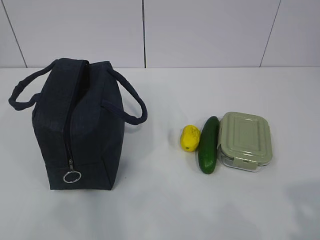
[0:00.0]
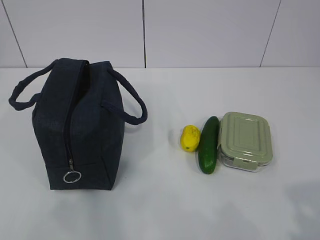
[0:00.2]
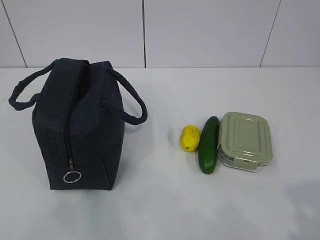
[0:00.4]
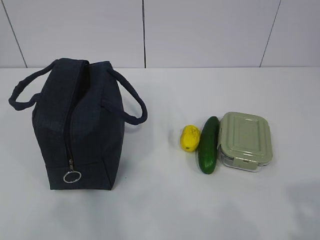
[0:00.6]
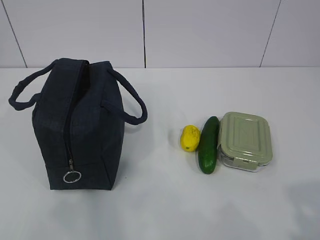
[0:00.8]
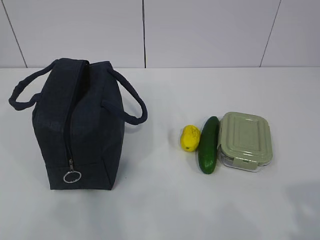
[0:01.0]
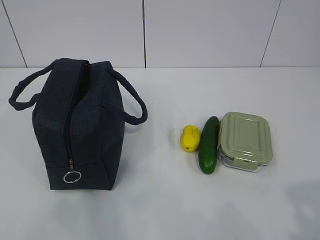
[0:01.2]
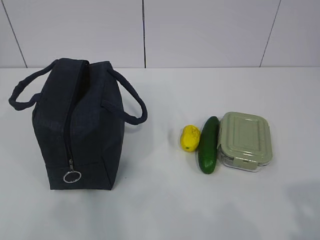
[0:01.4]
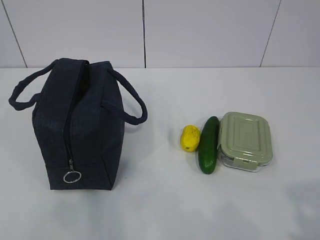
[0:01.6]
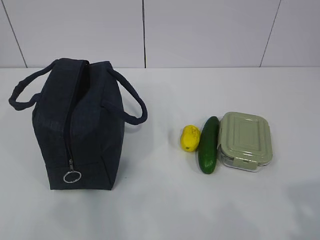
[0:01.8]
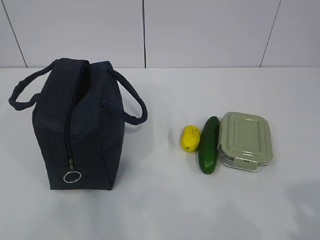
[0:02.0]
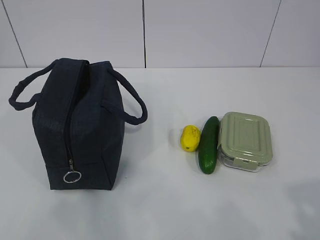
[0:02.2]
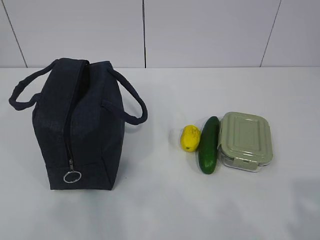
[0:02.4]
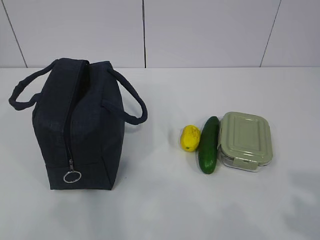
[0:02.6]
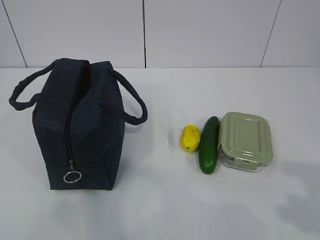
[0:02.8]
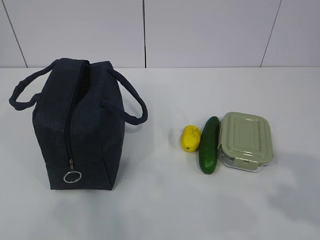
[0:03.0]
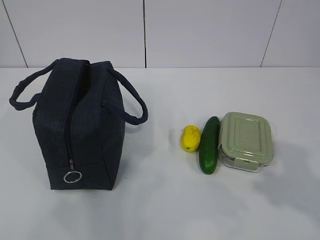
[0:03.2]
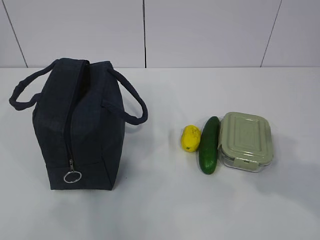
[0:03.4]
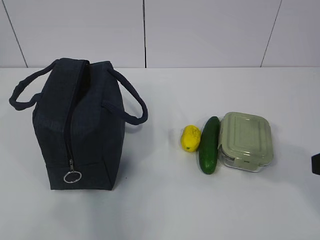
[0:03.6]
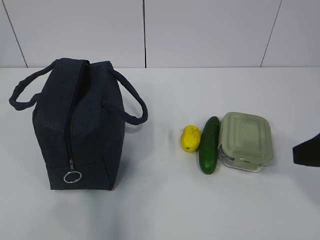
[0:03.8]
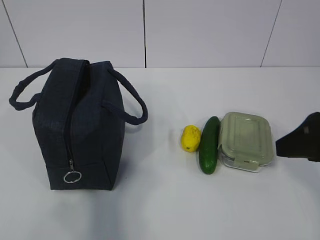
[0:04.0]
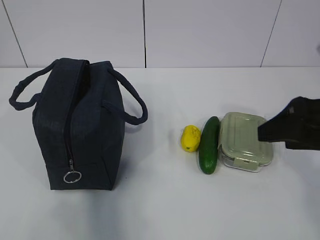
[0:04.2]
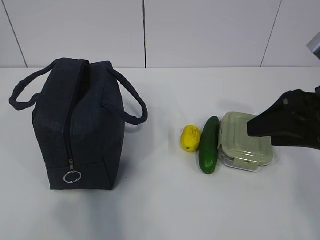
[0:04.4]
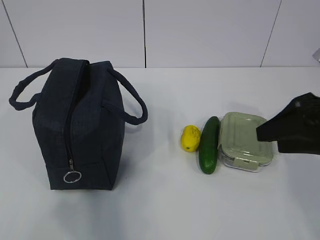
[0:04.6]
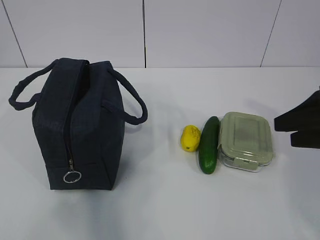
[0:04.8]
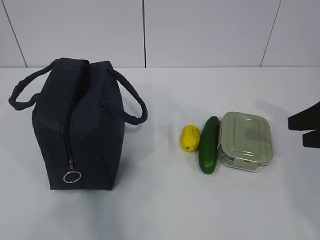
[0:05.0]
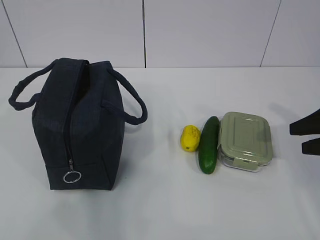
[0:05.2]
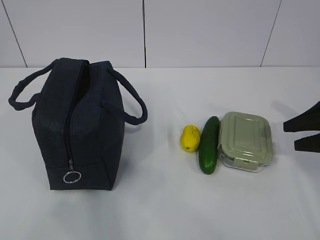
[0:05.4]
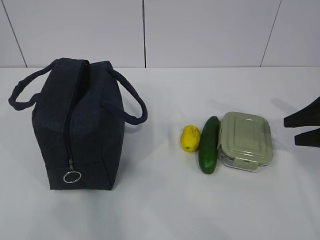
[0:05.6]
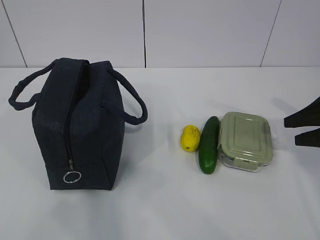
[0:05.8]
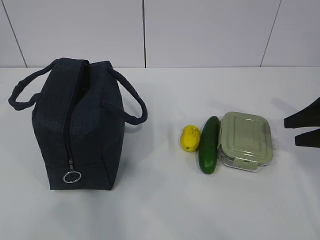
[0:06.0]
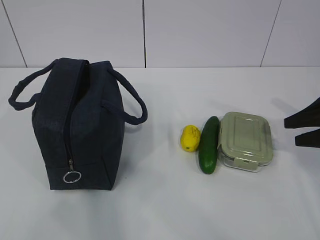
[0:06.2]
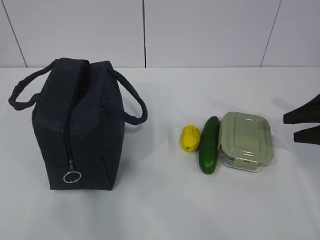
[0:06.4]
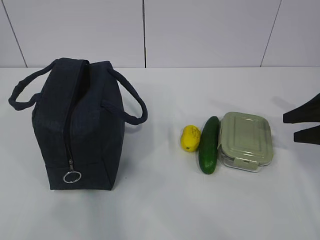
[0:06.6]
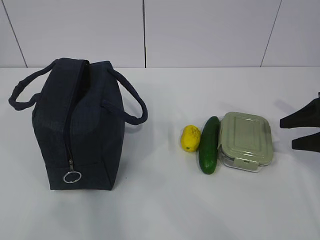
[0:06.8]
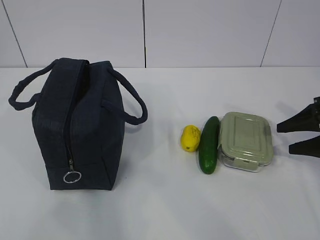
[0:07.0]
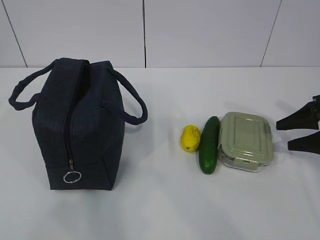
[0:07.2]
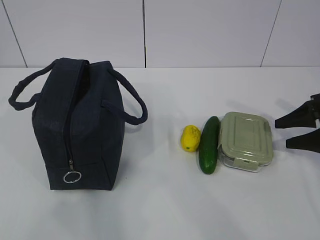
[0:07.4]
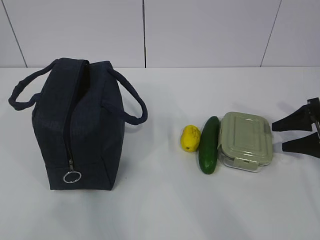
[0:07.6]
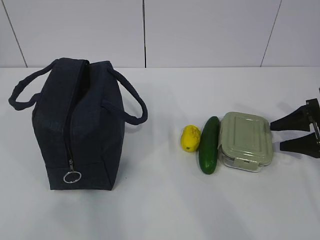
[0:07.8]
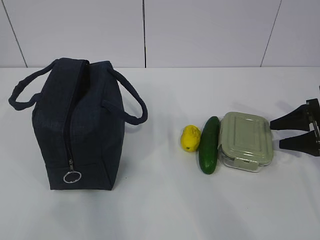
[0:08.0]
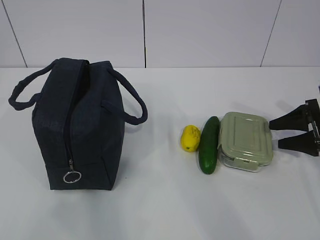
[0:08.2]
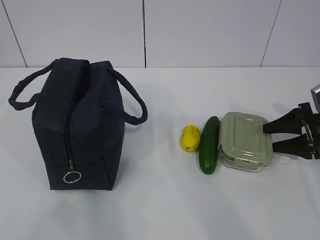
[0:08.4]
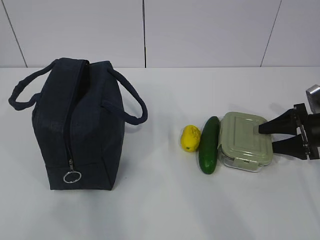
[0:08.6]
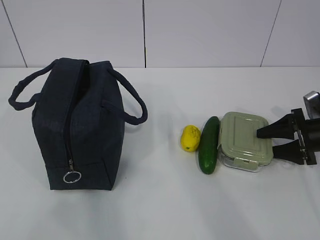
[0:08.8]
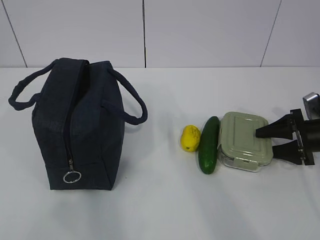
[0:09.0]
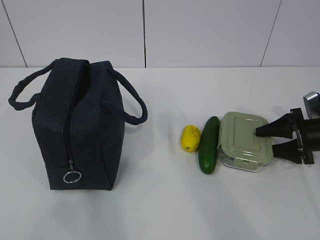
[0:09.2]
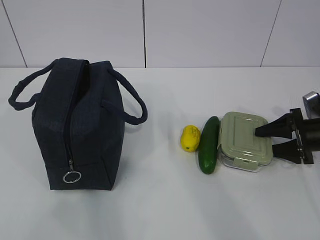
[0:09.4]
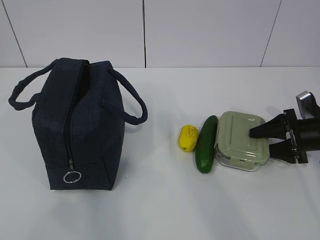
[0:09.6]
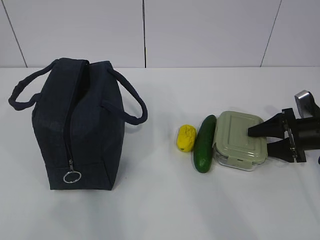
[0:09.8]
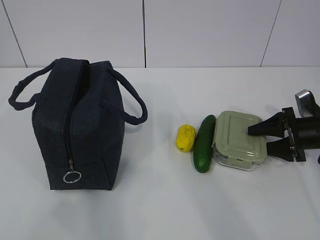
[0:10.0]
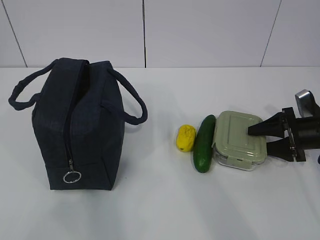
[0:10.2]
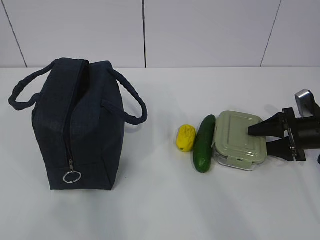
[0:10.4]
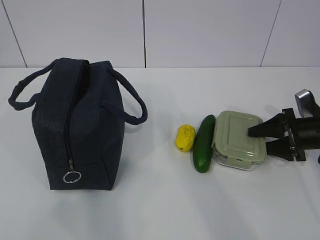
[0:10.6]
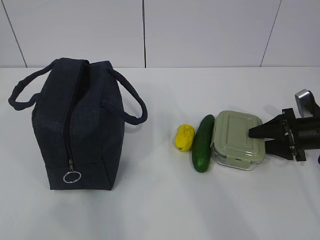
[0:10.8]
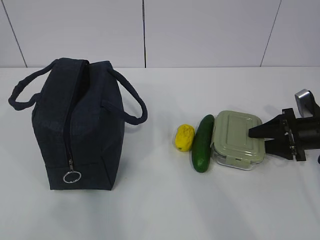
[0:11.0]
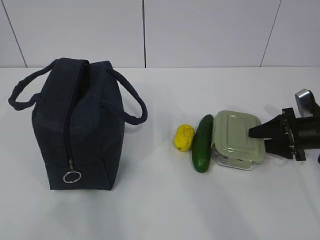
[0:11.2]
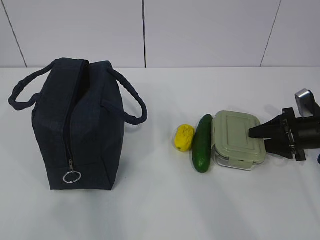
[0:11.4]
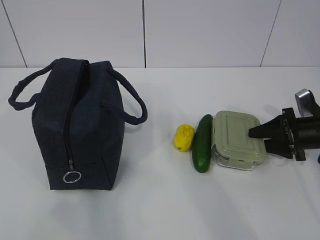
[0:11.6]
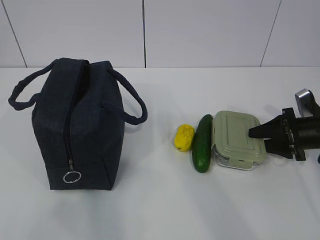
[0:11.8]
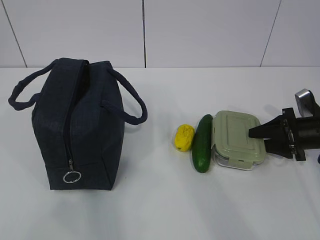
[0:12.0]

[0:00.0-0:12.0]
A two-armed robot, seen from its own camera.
0:03.0 to 0:04.4: The right gripper moves forward, about 20 cm.
0:04.4 to 0:06.0: The right gripper moves to the right, downward and forward, approximately 15 cm.
0:06.0 to 0:07.6: The right gripper goes approximately 5 cm downward.
0:07.6 to 0:10.4: The grippers stay close to where they were, moving slightly.
0:10.4 to 0:12.0: Neither gripper changes place.

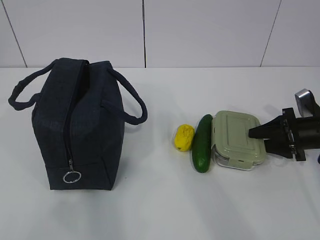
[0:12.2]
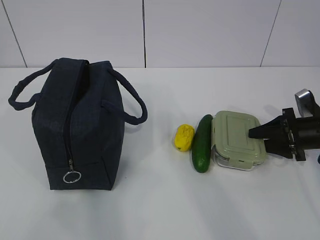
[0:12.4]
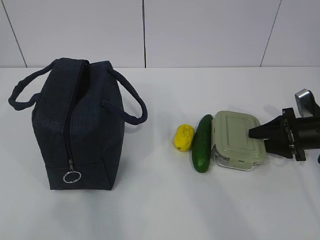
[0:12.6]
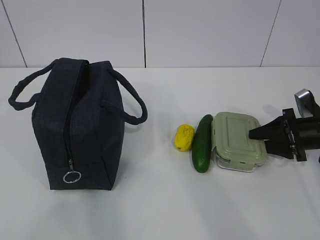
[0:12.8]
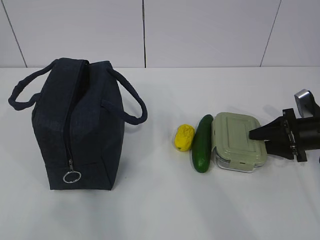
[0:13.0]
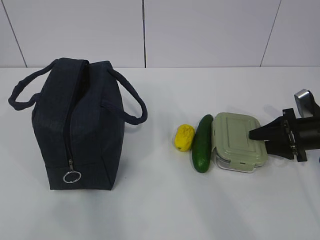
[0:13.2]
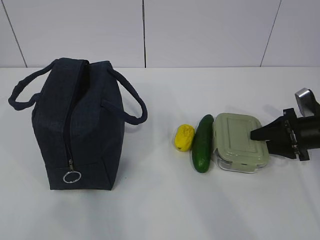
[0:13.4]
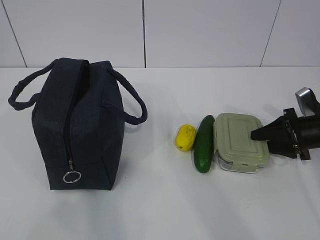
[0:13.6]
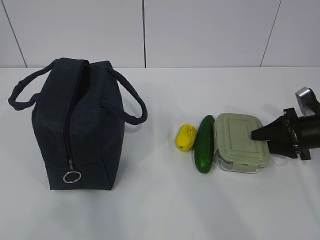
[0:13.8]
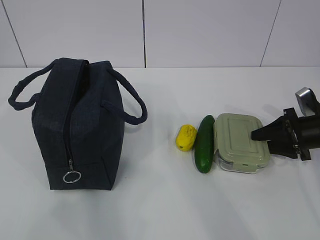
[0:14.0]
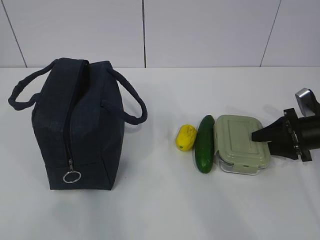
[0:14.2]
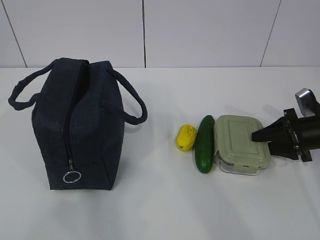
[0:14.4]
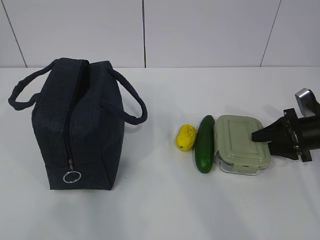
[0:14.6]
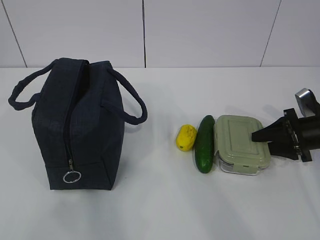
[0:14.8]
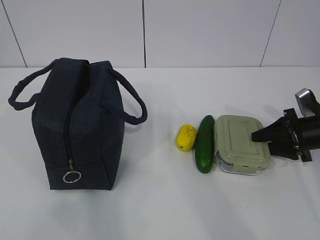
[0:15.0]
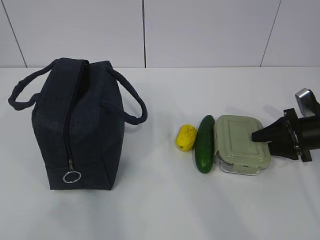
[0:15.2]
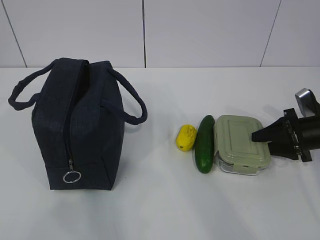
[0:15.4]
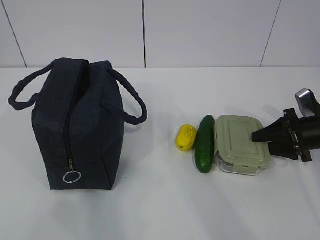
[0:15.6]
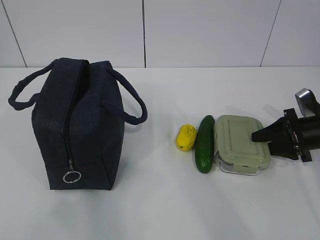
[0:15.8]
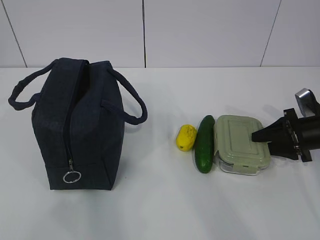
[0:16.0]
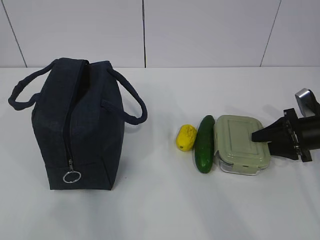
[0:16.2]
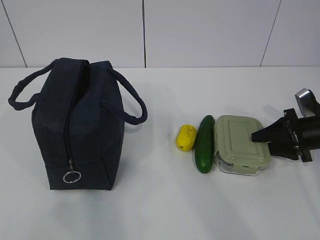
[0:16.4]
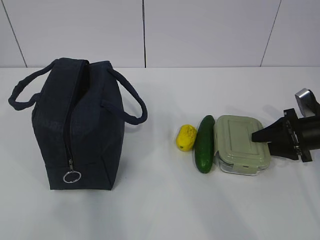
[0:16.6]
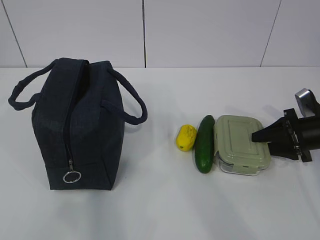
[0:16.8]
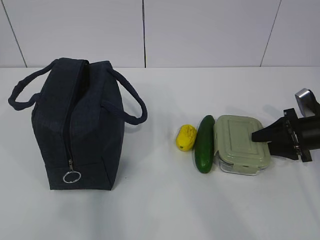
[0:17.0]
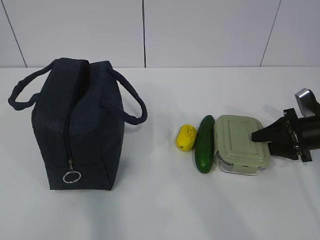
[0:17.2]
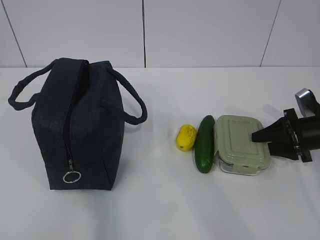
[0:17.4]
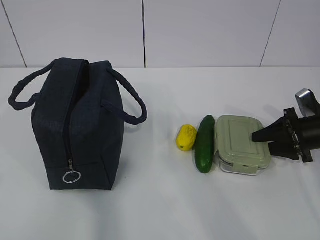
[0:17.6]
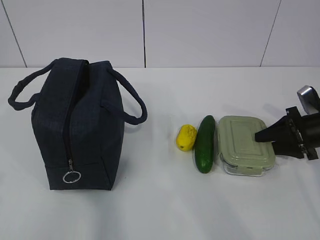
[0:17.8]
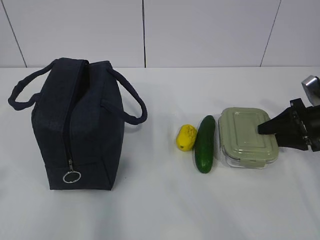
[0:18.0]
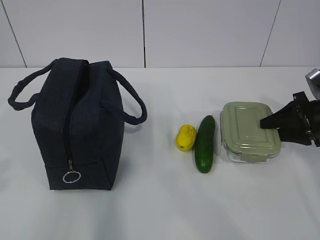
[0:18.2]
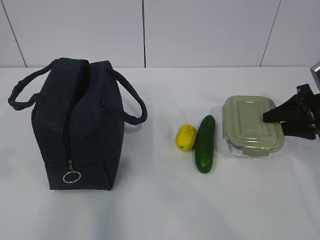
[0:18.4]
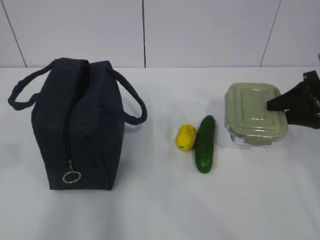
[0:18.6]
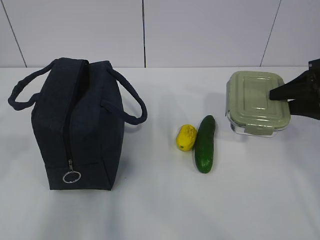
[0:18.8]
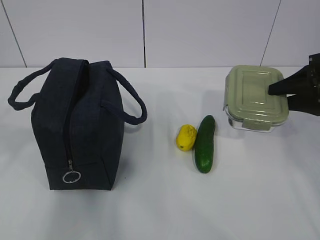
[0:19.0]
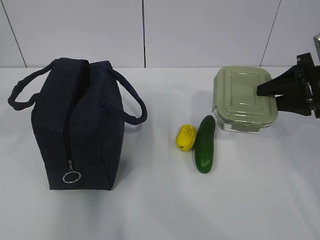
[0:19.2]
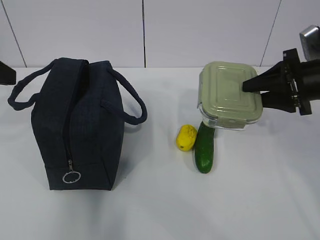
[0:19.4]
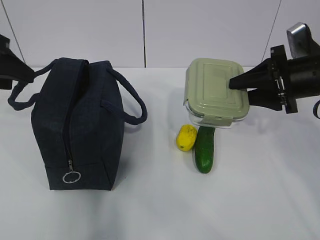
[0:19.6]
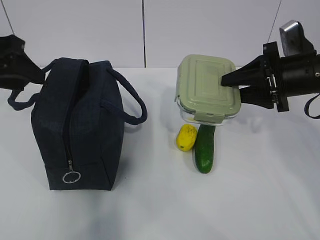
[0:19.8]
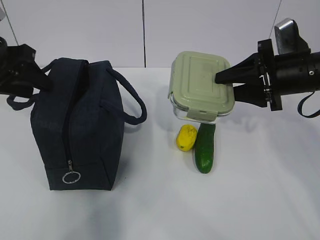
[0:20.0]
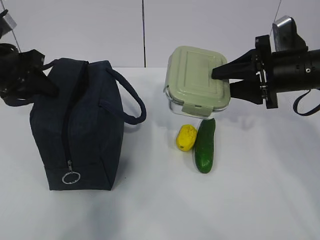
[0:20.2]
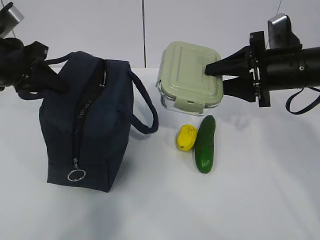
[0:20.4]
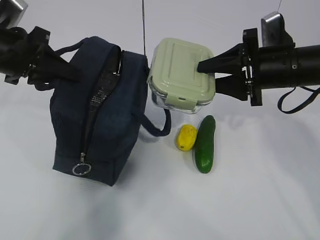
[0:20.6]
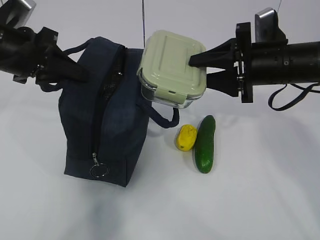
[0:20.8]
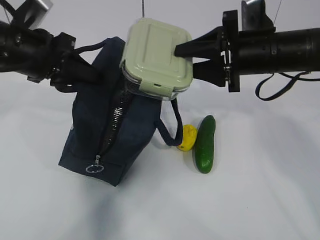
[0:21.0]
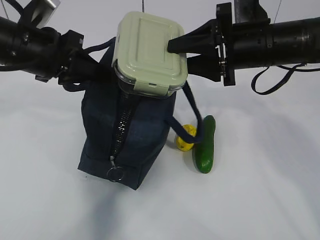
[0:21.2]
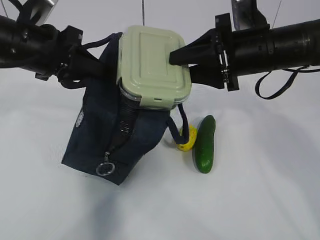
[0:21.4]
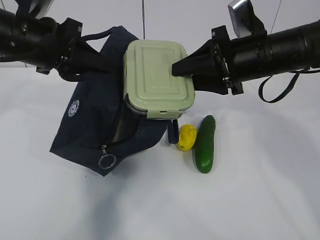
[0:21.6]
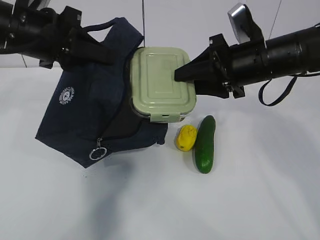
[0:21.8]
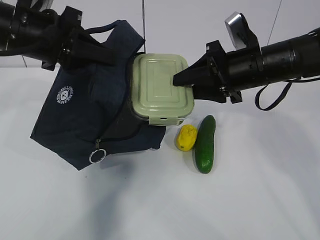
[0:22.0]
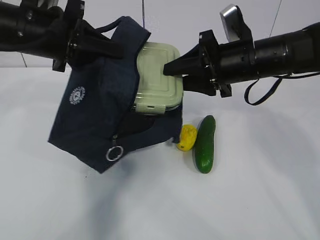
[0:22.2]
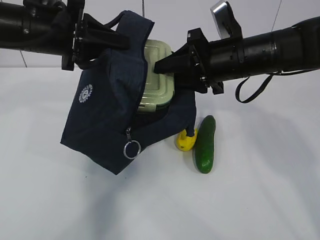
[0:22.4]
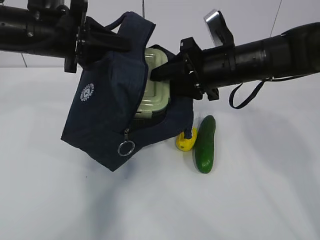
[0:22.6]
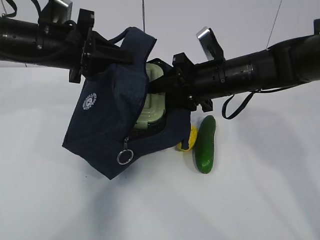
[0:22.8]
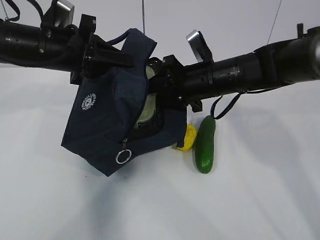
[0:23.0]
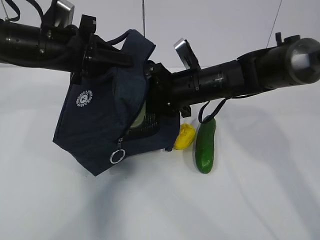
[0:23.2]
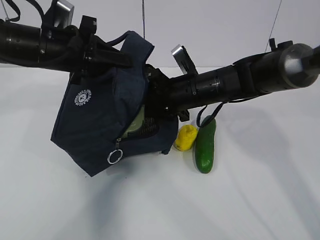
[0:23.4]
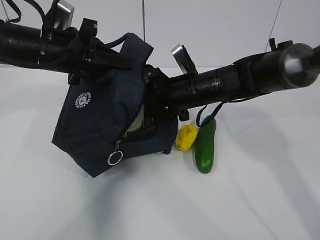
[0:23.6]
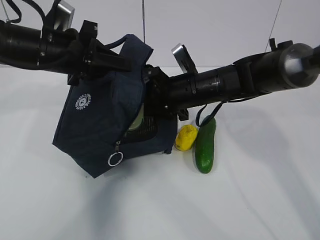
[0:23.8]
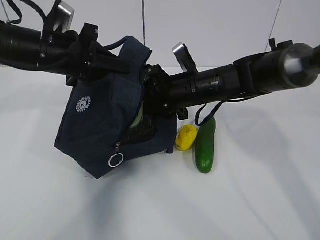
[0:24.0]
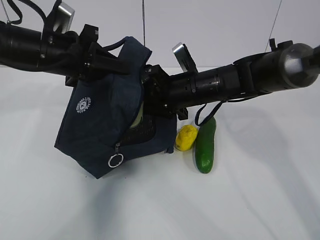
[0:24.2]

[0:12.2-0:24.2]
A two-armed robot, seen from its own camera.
0:12.2 to 0:16.6: The two grippers keep their place.
0:18.2 to 0:19.8: The right gripper shifts some 10 cm to the left and upward. Meanwhile the left gripper shifts approximately 25 cm forward, and opens up.
0:19.8 to 0:21.2: The right gripper shifts approximately 10 cm to the left; the left gripper is displaced to the right by some 10 cm, and closes.
0:21.2 to 0:22.6: The right gripper changes place by about 5 cm.
0:22.6 to 0:24.2: The right gripper is displaced downward by roughly 5 cm.
